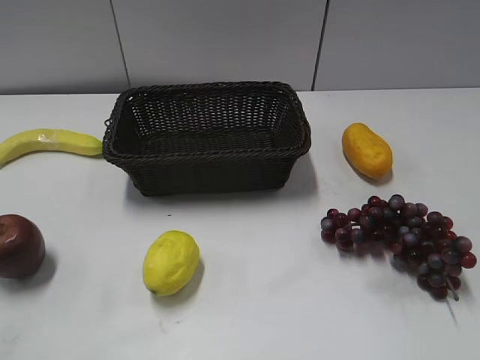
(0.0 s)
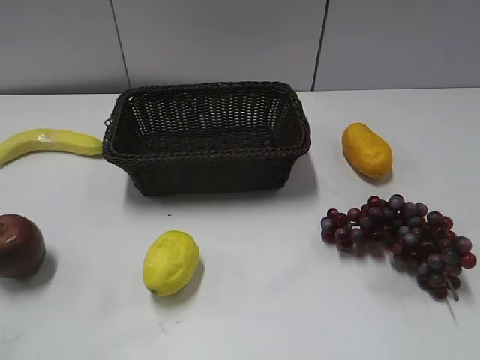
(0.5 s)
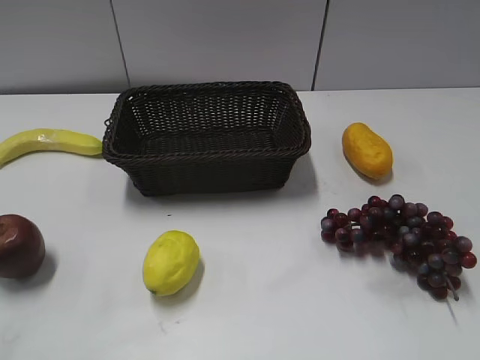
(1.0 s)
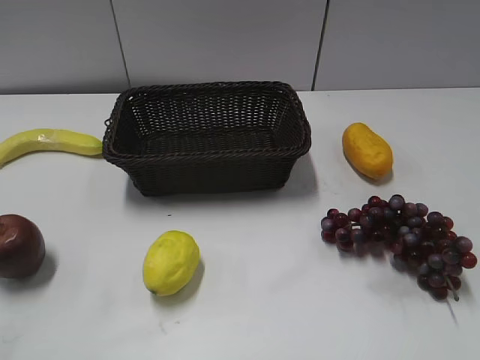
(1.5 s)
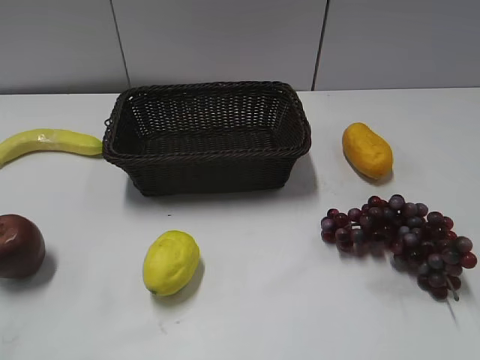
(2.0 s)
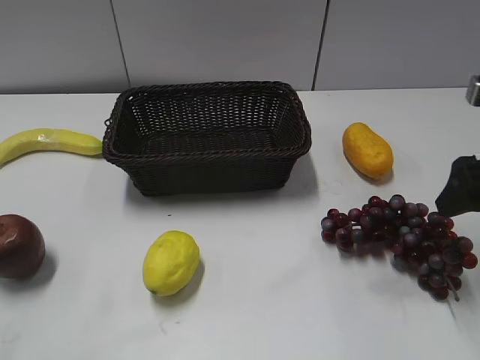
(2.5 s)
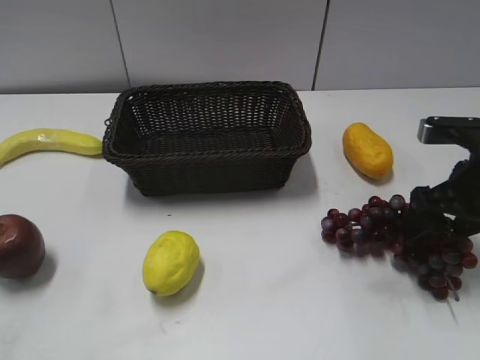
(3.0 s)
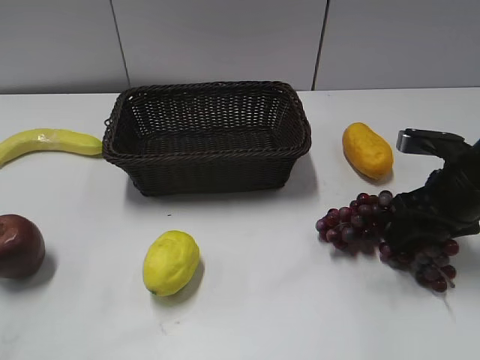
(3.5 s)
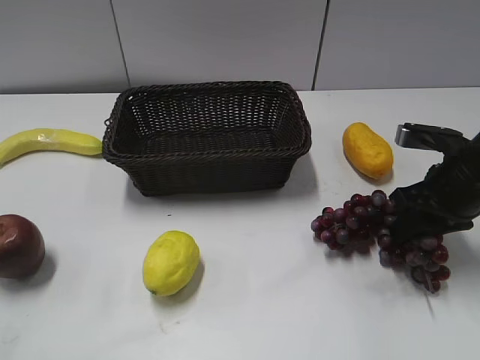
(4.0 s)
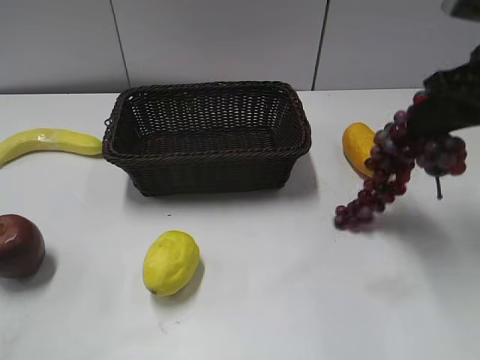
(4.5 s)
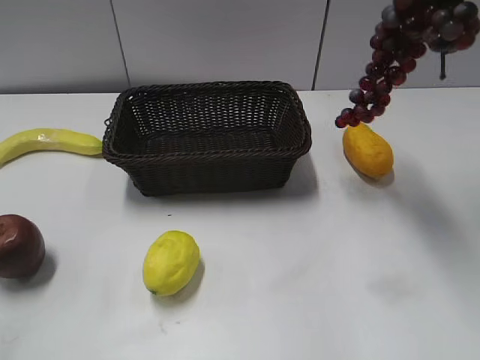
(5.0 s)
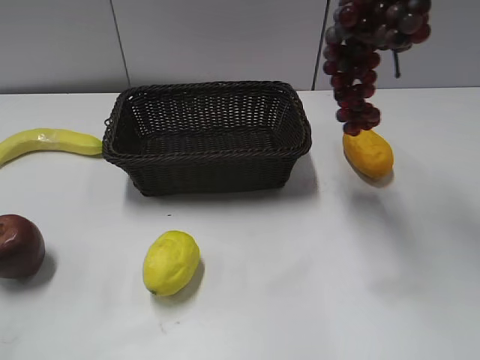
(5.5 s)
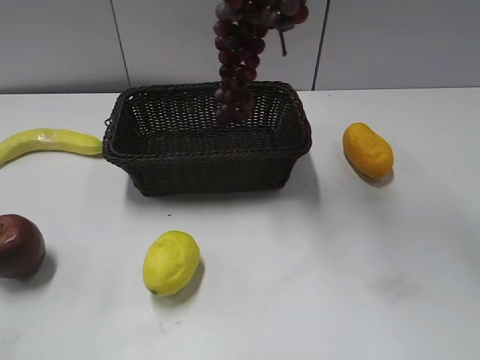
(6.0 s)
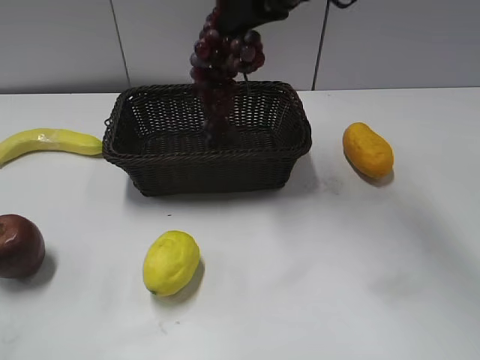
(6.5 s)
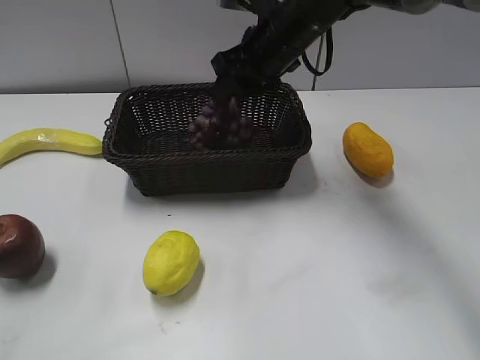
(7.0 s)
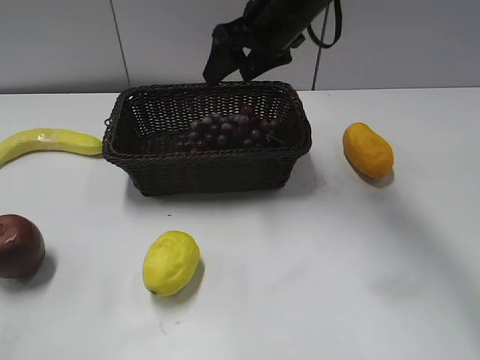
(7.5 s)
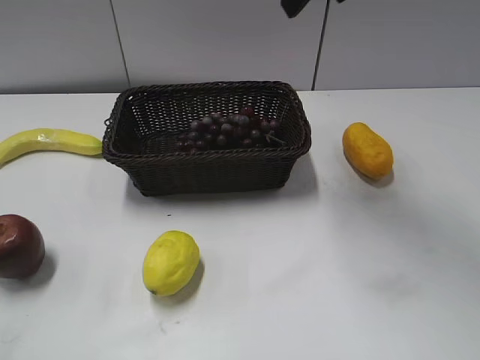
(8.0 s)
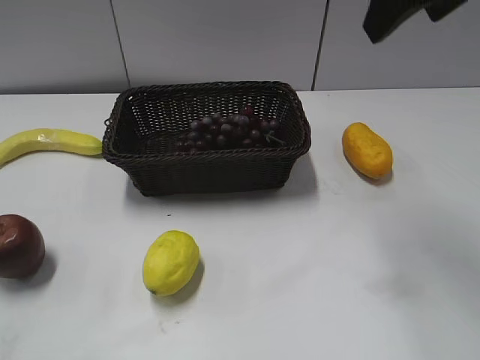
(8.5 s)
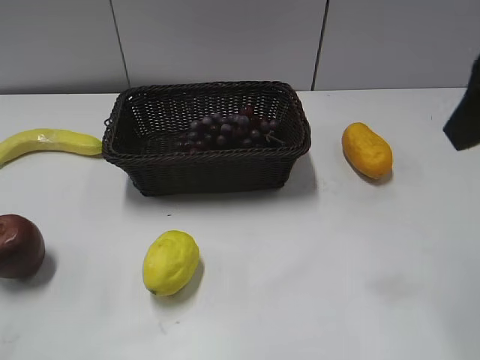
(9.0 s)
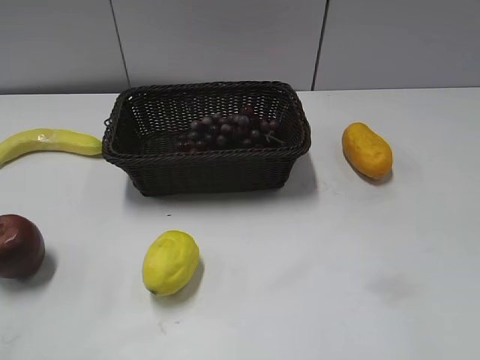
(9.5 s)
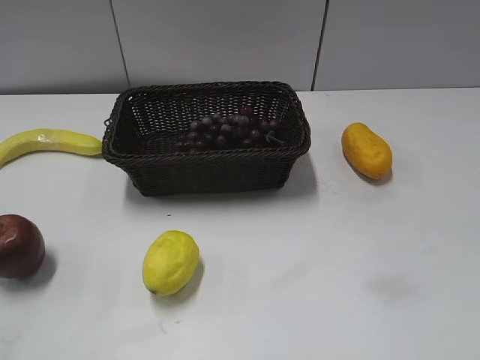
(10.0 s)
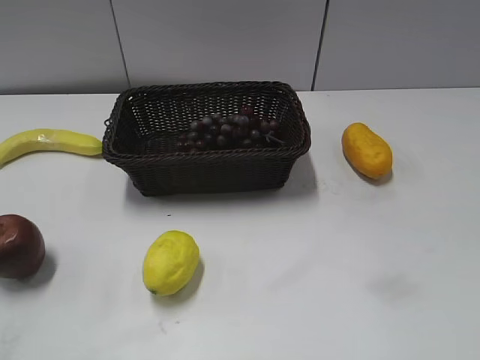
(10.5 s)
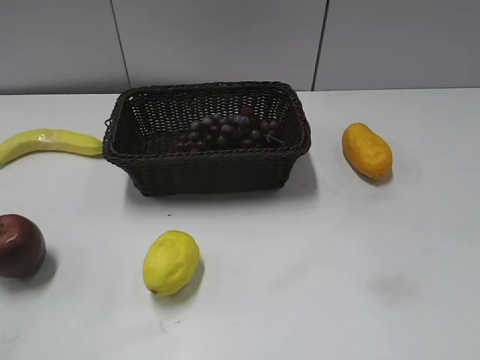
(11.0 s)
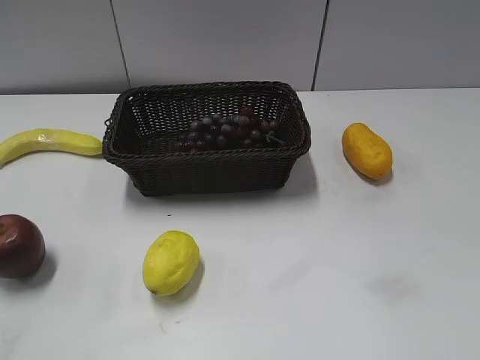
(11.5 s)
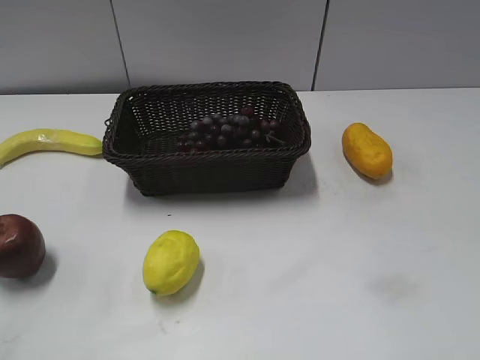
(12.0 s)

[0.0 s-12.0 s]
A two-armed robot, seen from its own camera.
Step, 2.0 to 4.5 s: Grasp the grape with right gripper.
Step, 5.0 to 7.0 s: Place the grape in the basket with right gripper.
2.0 to 4.0 s: The right gripper travels downward and forward by about 20 cm, and closes up.
4.0 to 6.0 s: The right gripper heads upward and to the left, covering approximately 30 cm.
6.0 to 8.0 s: The right gripper travels downward and back again, some 15 cm each way, and opens.
8.0 to 10.0 s: The right gripper shifts about 35 cm backward and to the right.

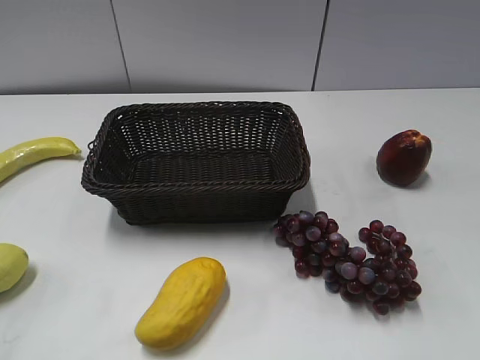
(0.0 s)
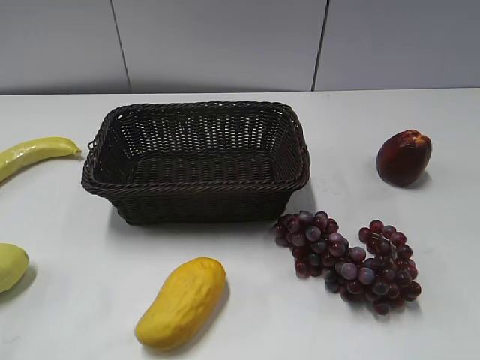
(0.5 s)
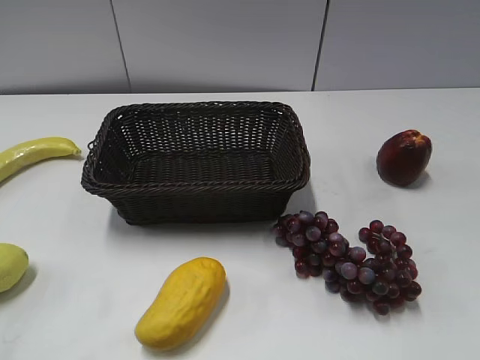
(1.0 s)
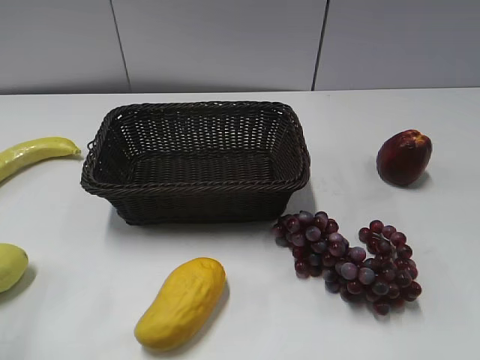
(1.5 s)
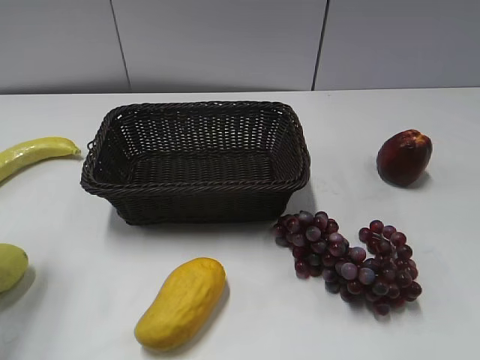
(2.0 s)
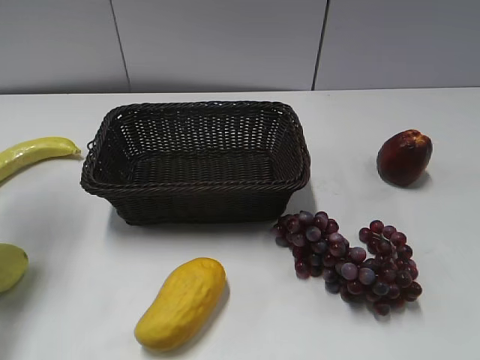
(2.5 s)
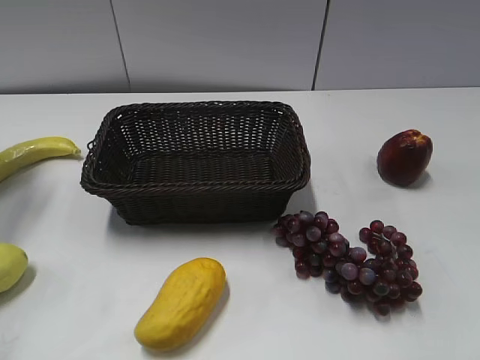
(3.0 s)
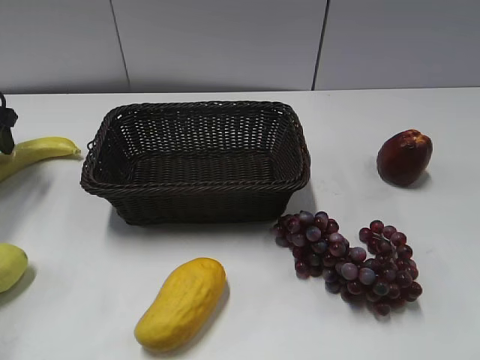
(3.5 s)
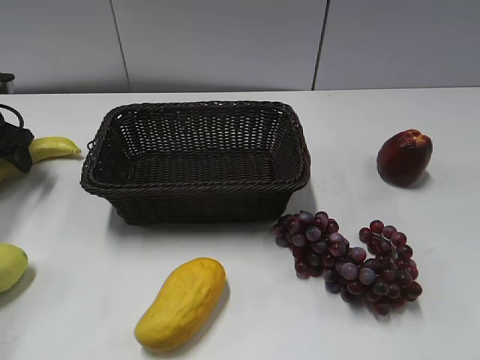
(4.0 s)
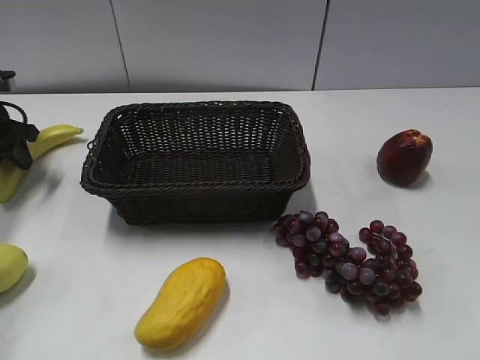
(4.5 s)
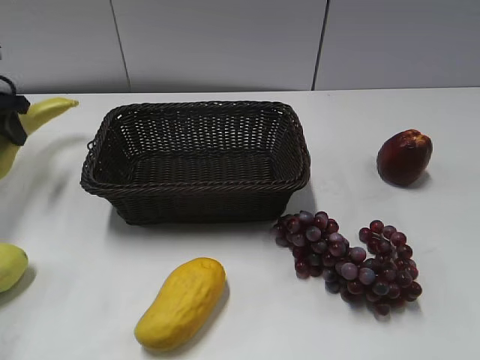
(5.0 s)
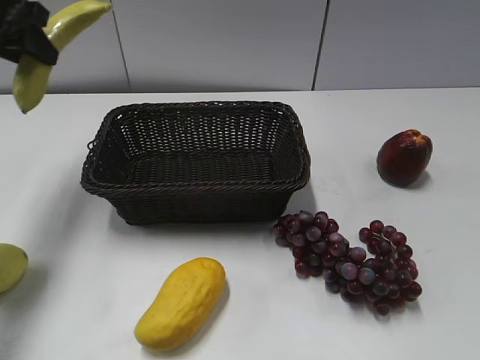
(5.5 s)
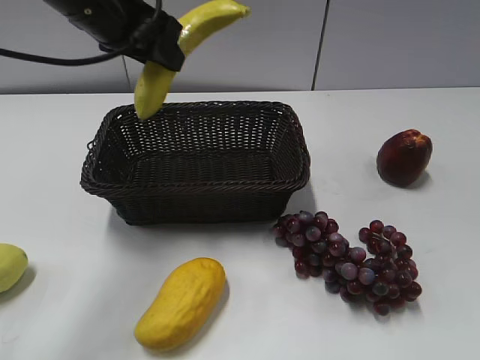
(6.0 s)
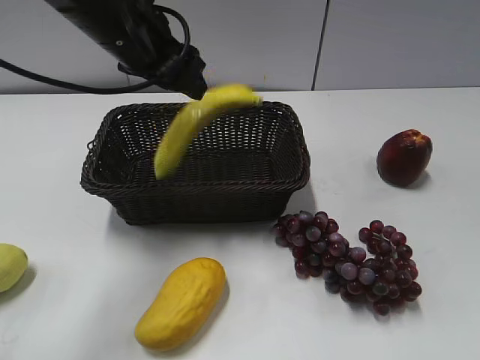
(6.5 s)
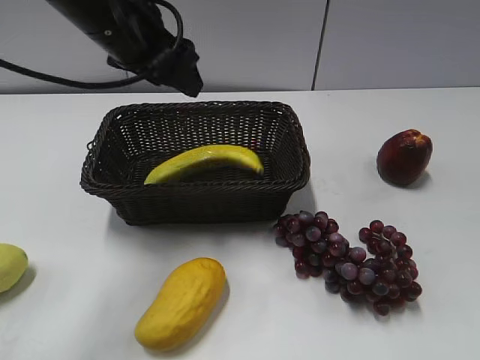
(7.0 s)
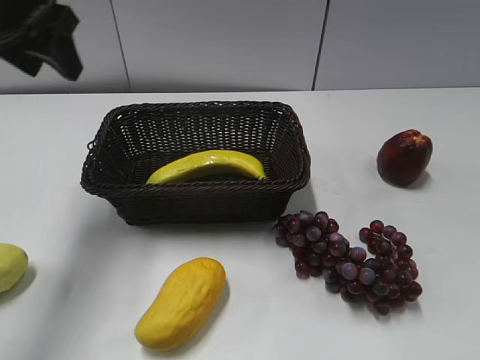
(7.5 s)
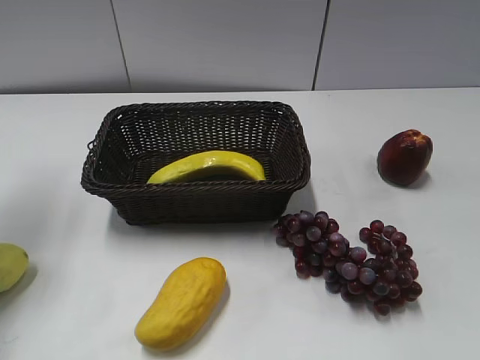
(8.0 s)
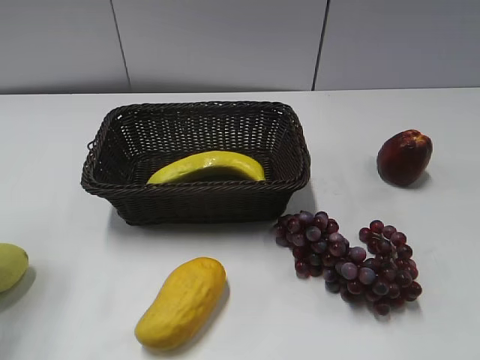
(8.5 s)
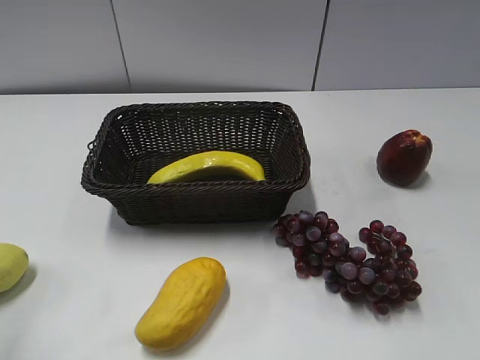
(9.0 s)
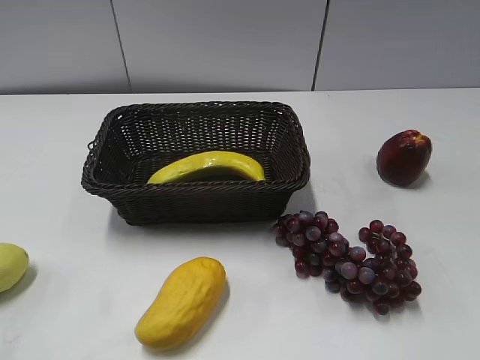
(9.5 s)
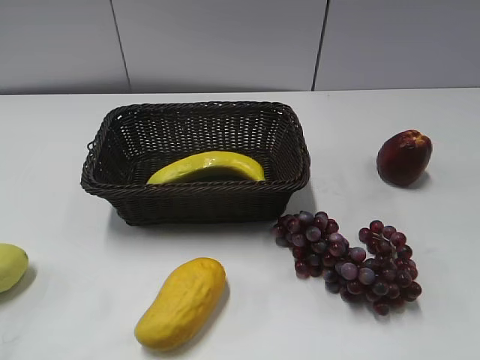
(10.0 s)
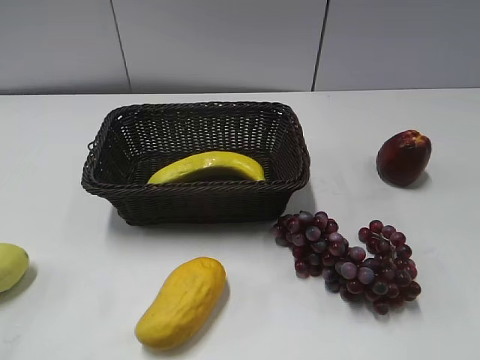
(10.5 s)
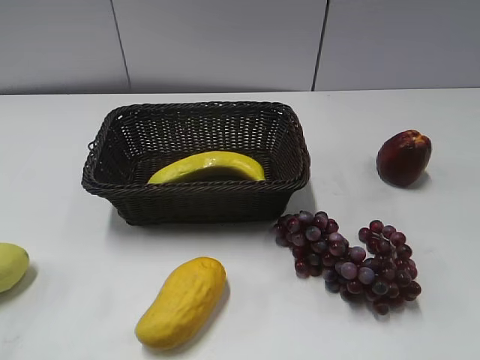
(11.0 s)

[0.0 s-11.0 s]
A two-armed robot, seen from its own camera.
Step, 3.0 to 4.0 s: Grasp the banana with left gripper.
Step, 4.5 to 6.5 s: Place the banana in the basket with left gripper.
2.0 to 3.5 s: The left gripper goes some 25 cm forward and downward.
3.5 to 5.5 s: The left gripper shifts some 15 cm upward and to the right, and closes its fingers.
5.5 to 7.5 s: The left gripper moves roughly 15 cm to the right and comes back, and opens its fingers.
7.5 to 9.0 s: The left gripper is displaced backward by roughly 25 cm.
